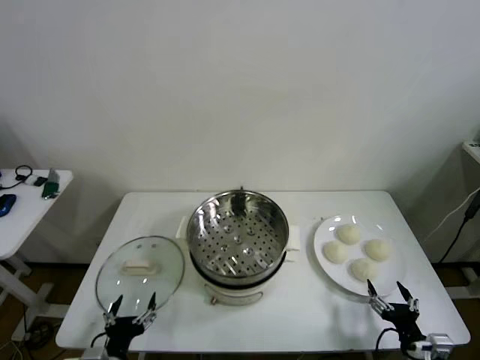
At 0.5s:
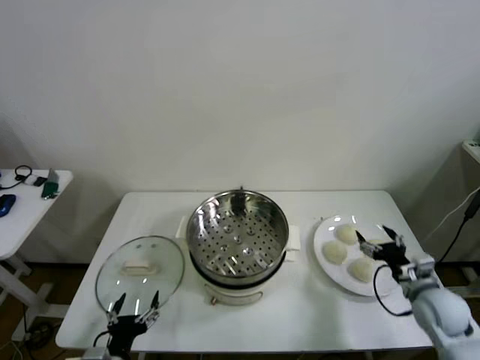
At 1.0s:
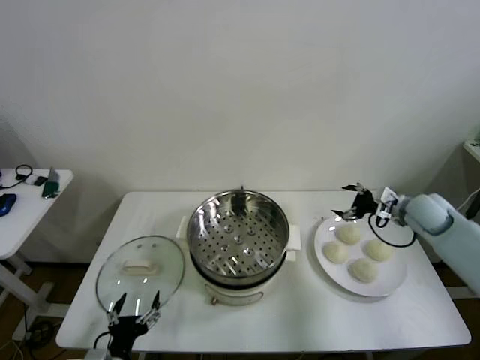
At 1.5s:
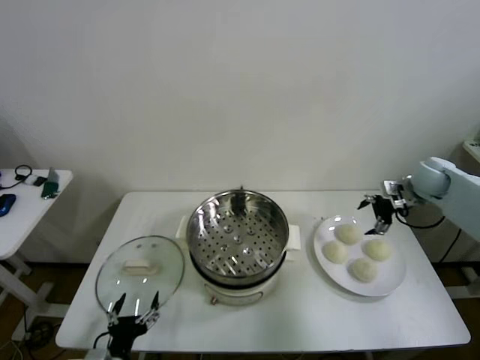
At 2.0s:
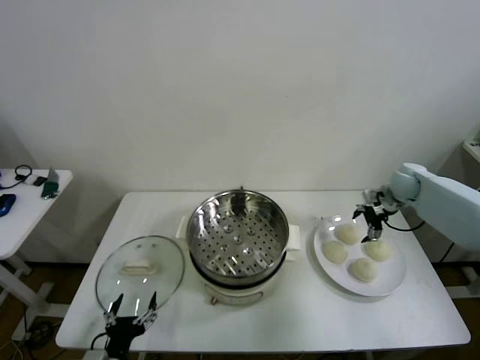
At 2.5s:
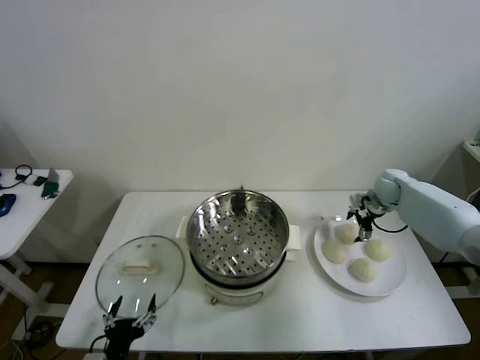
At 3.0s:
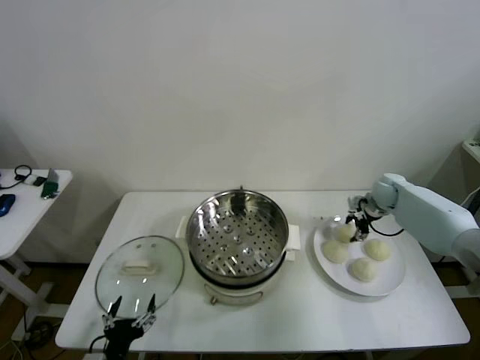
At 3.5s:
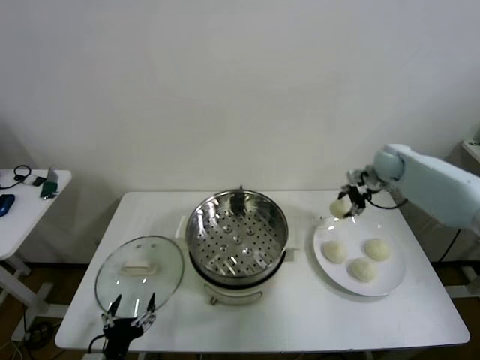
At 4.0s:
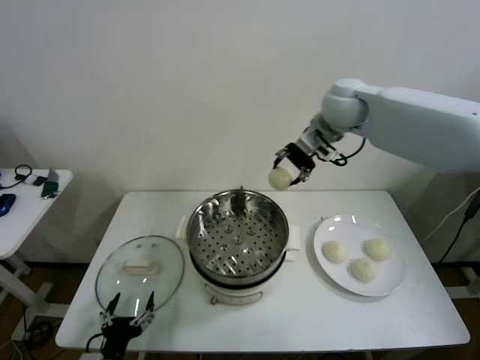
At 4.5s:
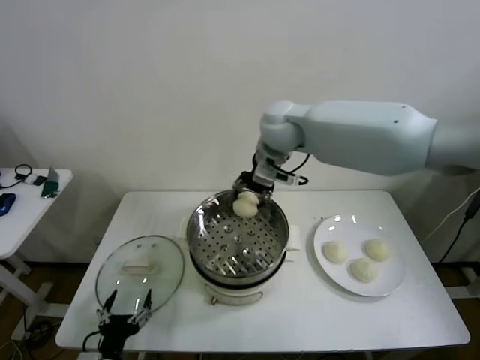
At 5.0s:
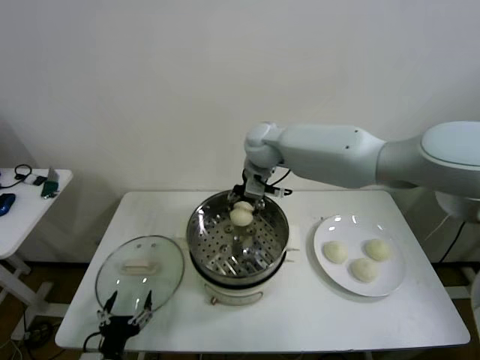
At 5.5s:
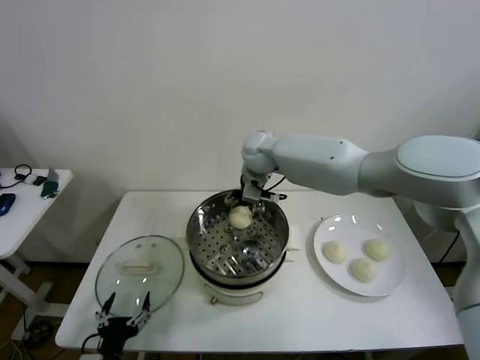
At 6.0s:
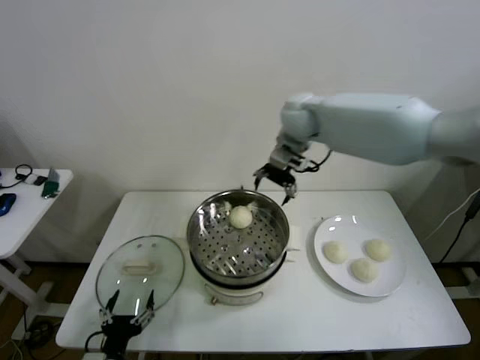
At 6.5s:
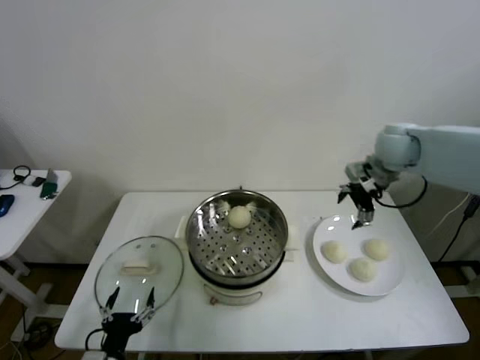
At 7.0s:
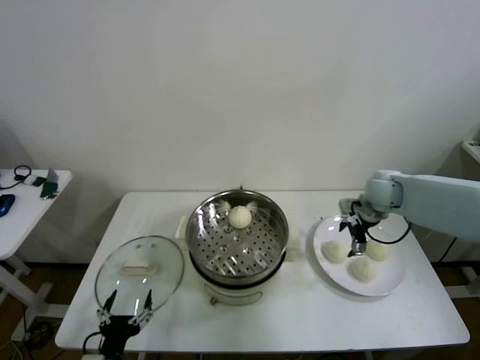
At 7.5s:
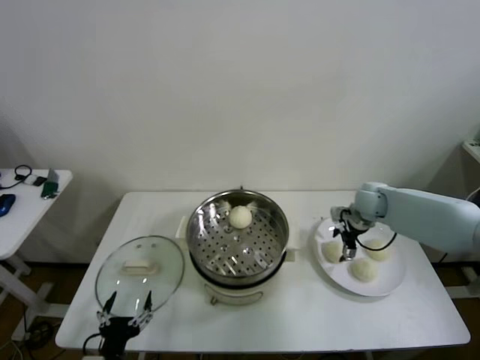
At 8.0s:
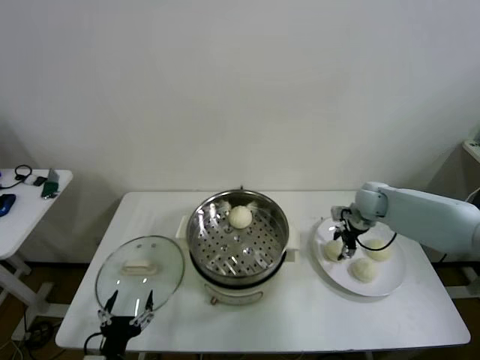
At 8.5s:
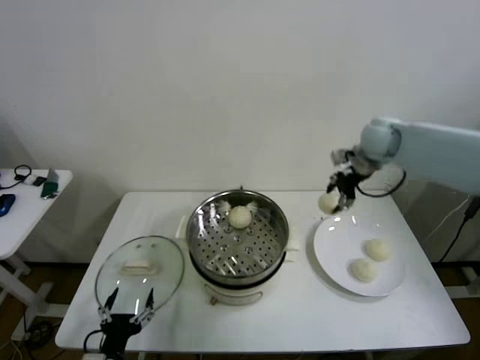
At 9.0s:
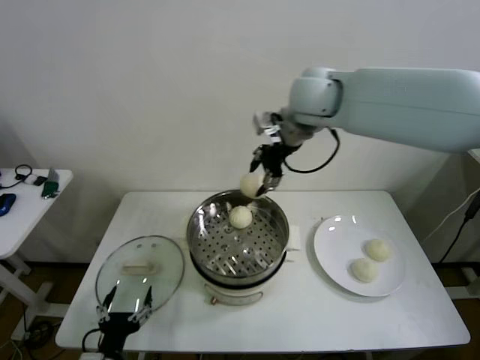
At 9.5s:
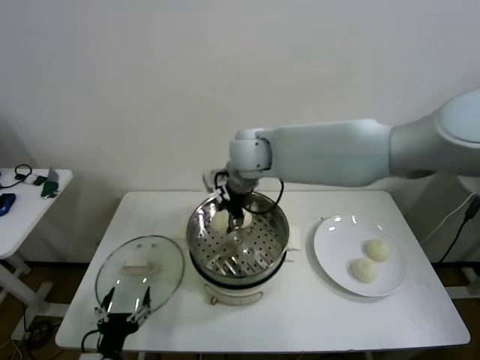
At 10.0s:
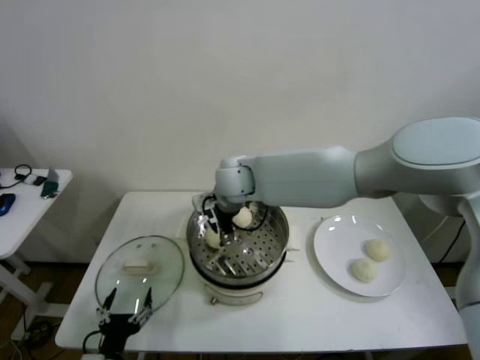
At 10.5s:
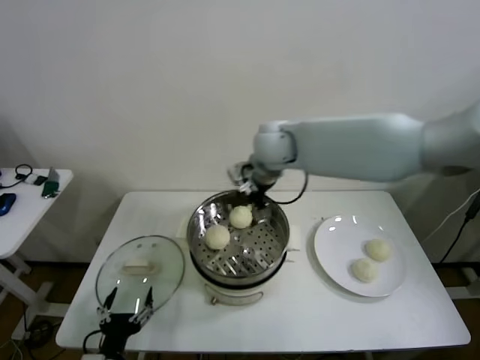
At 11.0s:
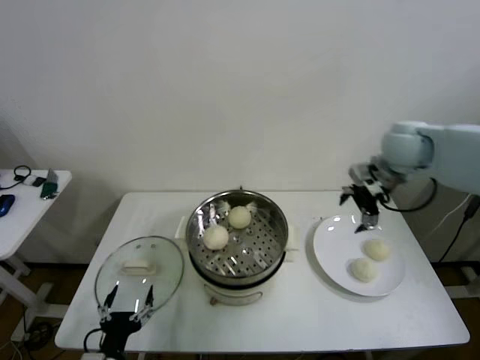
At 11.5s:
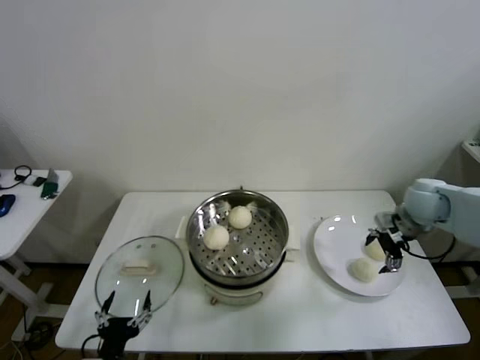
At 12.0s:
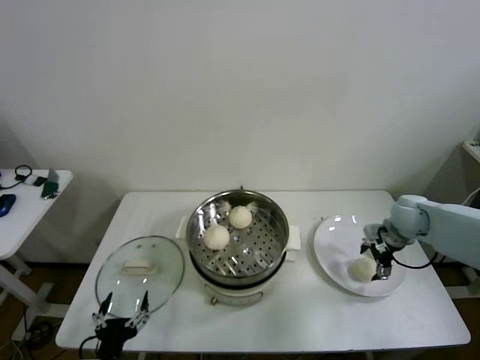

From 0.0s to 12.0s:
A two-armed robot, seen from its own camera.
Step, from 0.0s to 3.0s: Grasp the baozi in the plate with right gripper.
Step, from 3.5s to 5.5s: Place the baozi on the steamer with right gripper.
Step, from 6.0s to 7.5s: Grasp the baozi in the plate with right gripper.
Step, from 8.0s to 10.0s: Place the baozi on the steamer with right gripper.
From 2.0s to 4.0s: The right gripper travels to the left and upward by approximately 35 cm, and closes up.
From 4.0s to 6.0s: The right gripper moves about 10 cm to the left and comes back, and opens.
From 6.0s to 8.0s: The right gripper goes some 30 cm downward and to the right, and closes up.
From 8.0s to 10.0s: The right gripper is displaced to the left by roughly 35 cm, and opens up.
From 10.0s to 12.0s: The right gripper shifts roughly 40 cm to the right.

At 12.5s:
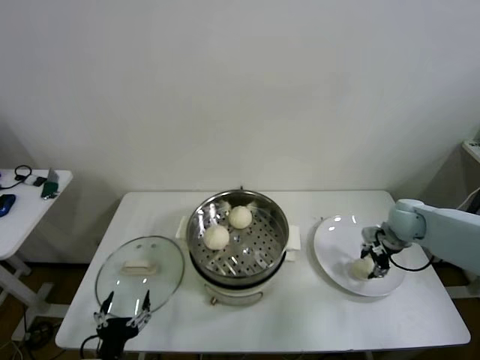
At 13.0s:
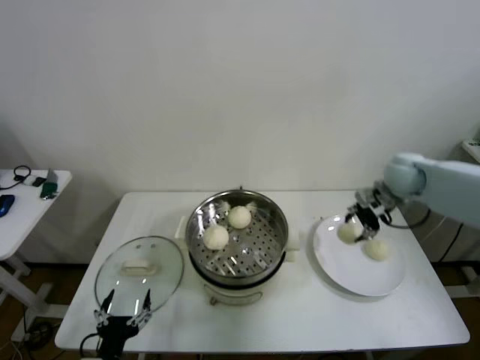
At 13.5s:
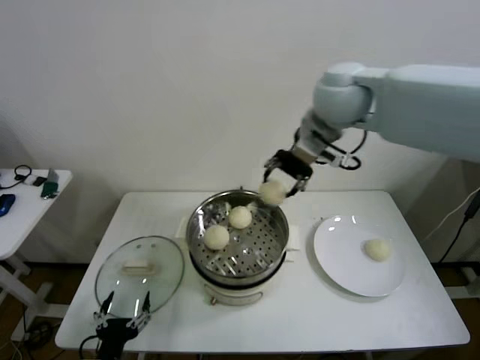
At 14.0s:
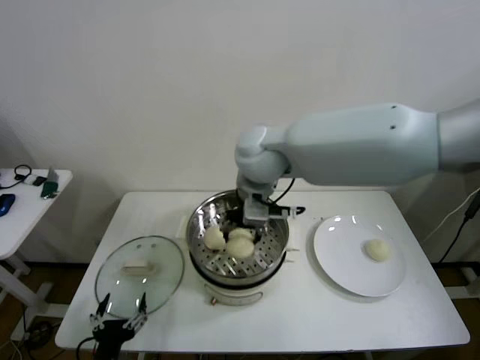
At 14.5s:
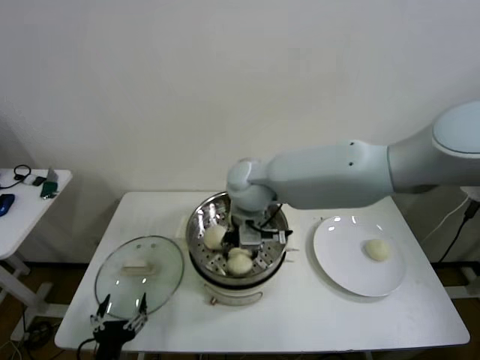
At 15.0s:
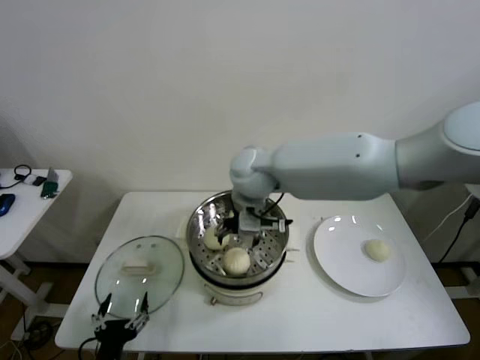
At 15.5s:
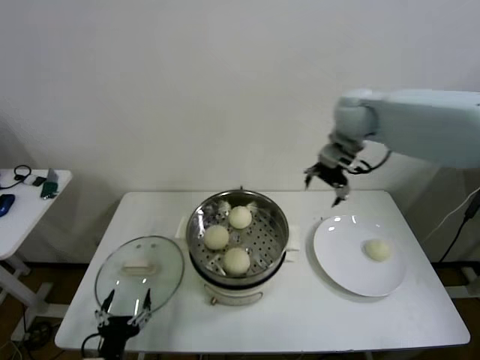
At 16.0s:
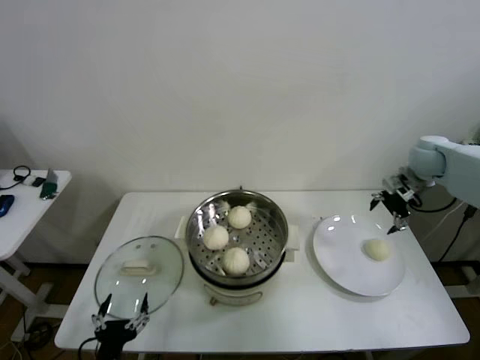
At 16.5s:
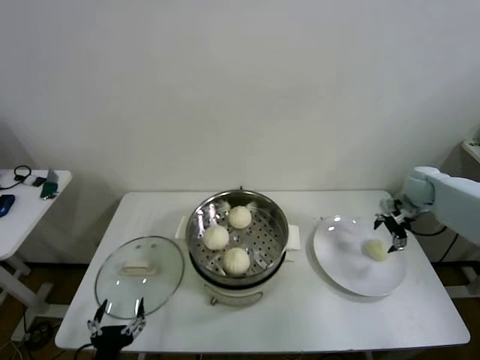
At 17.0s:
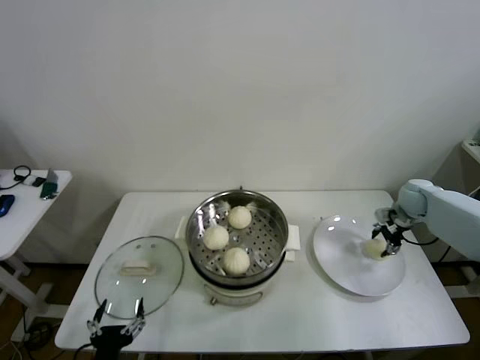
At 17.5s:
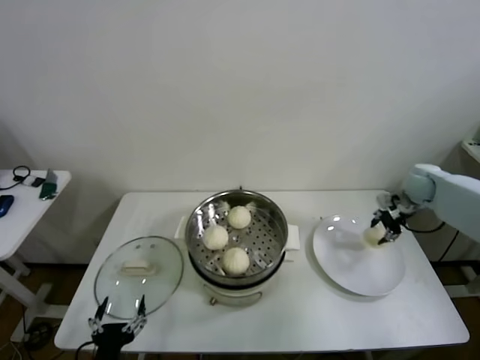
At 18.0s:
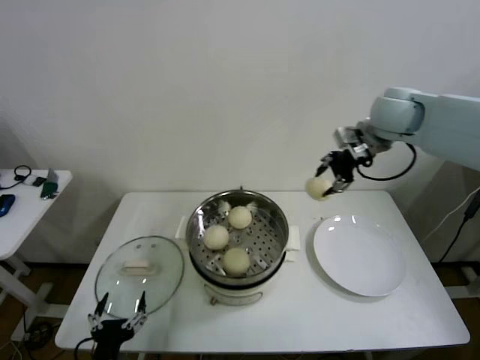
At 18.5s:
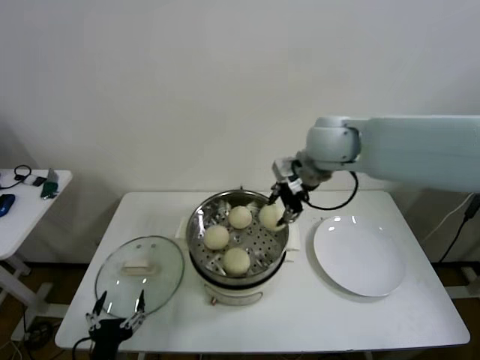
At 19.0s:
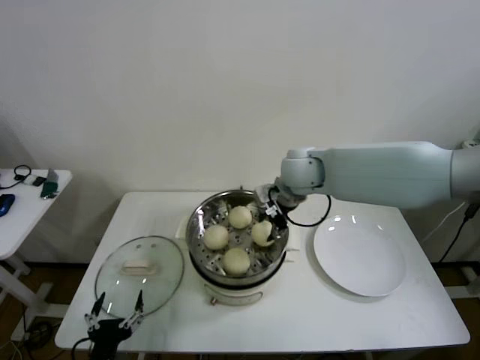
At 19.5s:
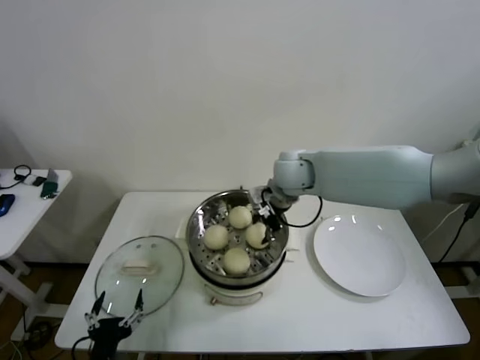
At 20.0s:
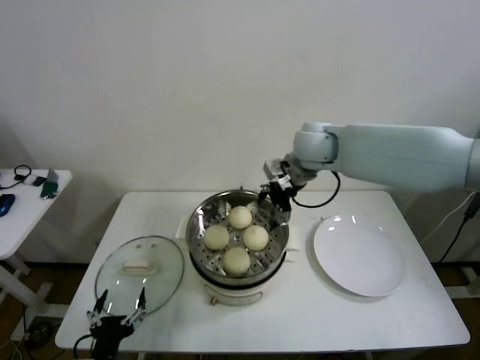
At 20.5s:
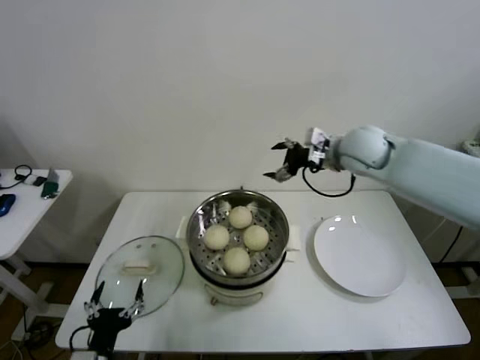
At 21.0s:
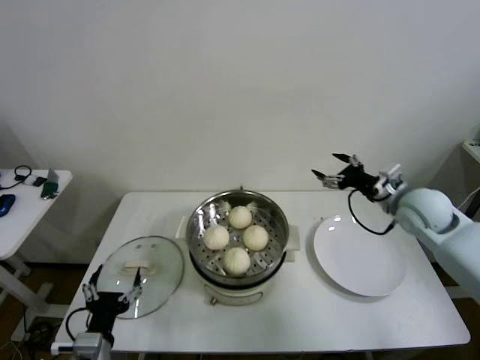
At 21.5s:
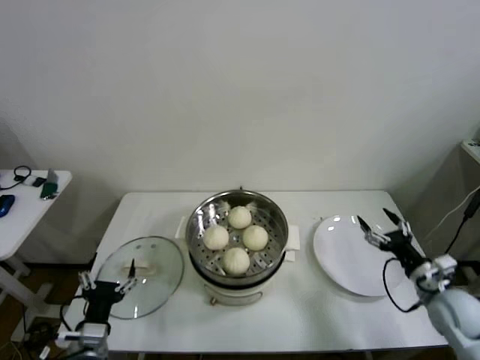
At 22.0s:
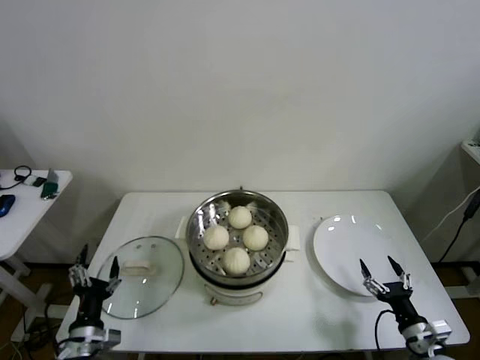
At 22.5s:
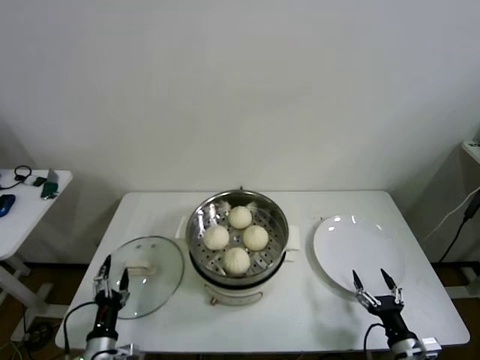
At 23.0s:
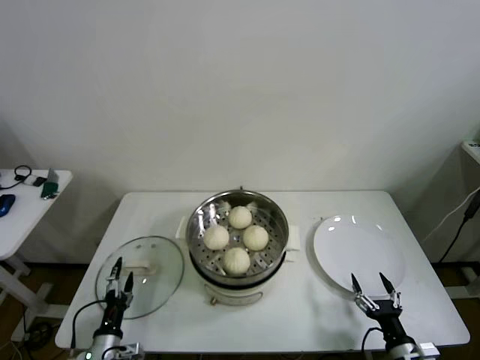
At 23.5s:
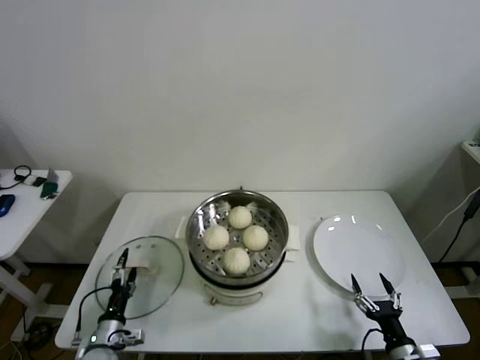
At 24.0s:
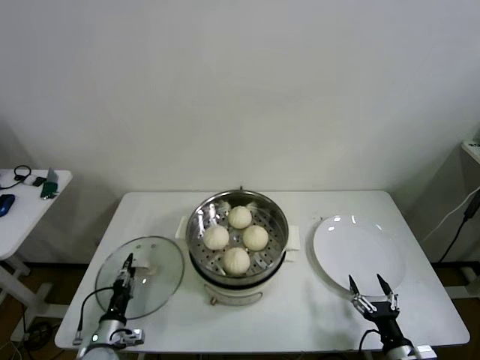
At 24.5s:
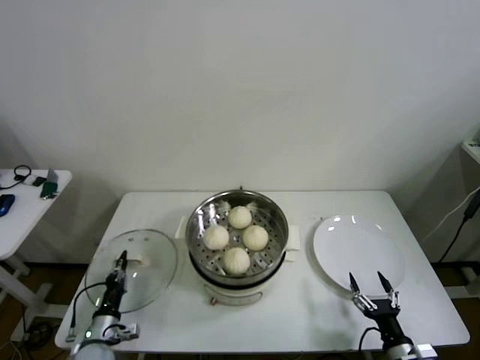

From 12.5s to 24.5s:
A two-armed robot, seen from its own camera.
Step, from 13.0s to 14.5s: Place the baozi on the steamer with right gripper.
Step, from 15.0s to 17.0s: Grasp the baozi in the plate with right gripper.
Step, from 17.5s to 19.5s: Place the baozi on the steamer with right gripper.
Step, from 20.0s to 24.0s: Grasp the pot lid with left gripper.
From 12.5s to 14.5s: The right gripper shifts roughly 40 cm to the left.
From 14.5s to 16.5s: The right gripper shifts roughly 50 cm to the right, and opens its fingers.
From 16.5s to 18.5s: The right gripper shifts some 35 cm to the left and upward, and closes its fingers.
From 18.5s to 20.5s: The right gripper heads to the right, covering about 10 cm, and opens its fingers.
From 20.5s to 22.5s: The left gripper goes about 10 cm downward and forward, while the right gripper travels downward and backward by approximately 50 cm.
From 22.5s to 24.5s: The left gripper shifts some 5 cm forward, and closes its fingers.

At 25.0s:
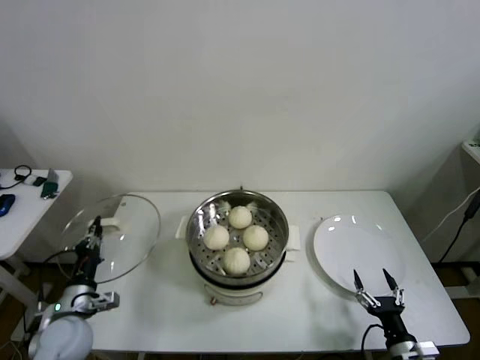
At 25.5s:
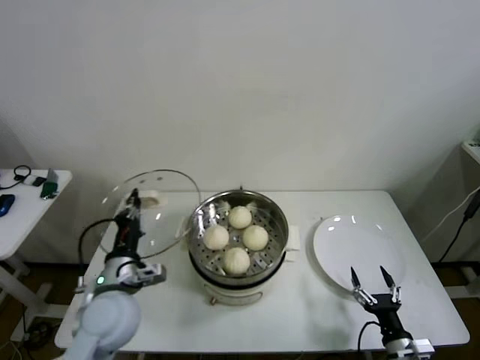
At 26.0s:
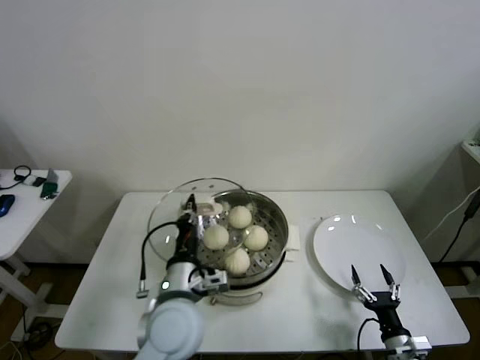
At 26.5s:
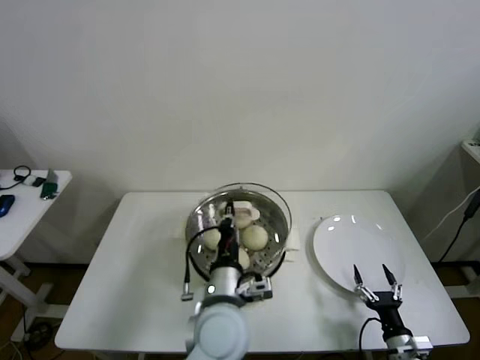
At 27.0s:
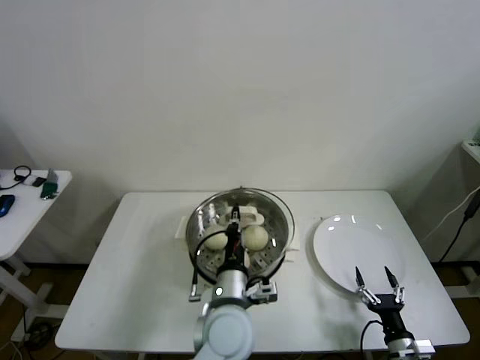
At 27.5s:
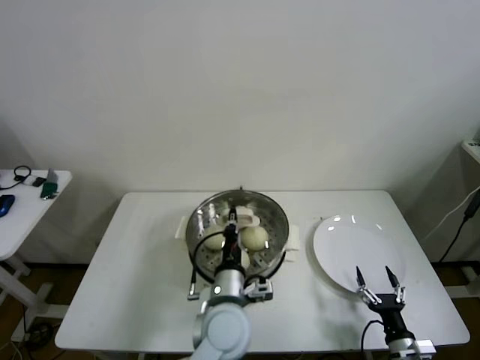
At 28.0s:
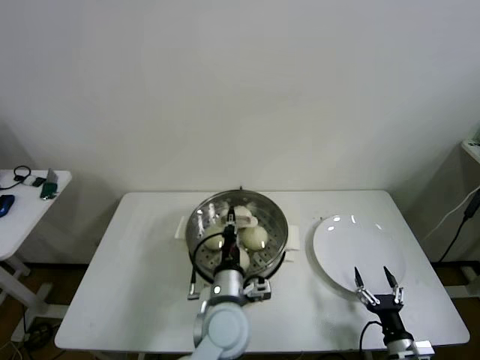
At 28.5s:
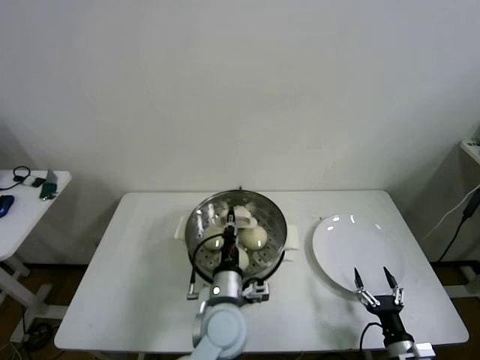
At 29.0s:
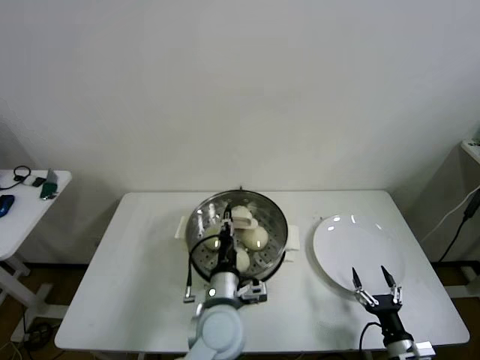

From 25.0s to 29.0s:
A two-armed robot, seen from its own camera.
Step, from 25.0s to 28.5s: Place the pot lid on the steamer with left gripper.
From 25.0s to 27.0s: The left gripper goes roughly 35 cm to the right.
From 27.0s to 29.0s: The grippers move only a little.
